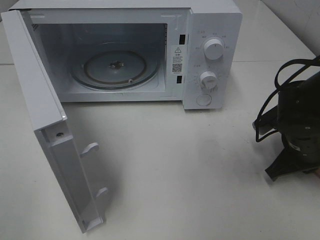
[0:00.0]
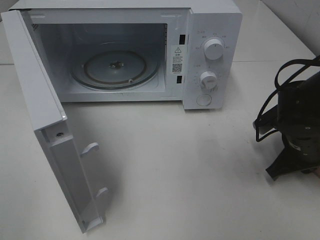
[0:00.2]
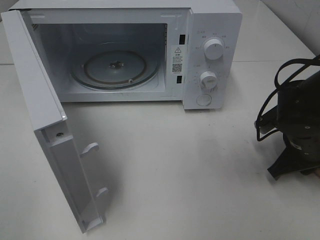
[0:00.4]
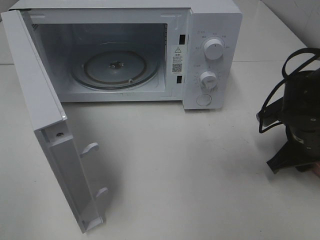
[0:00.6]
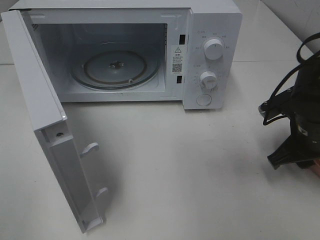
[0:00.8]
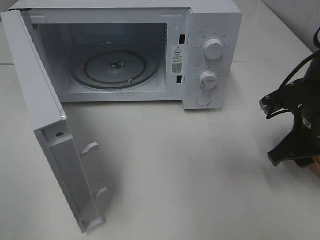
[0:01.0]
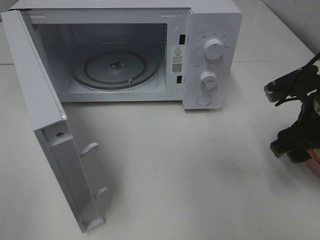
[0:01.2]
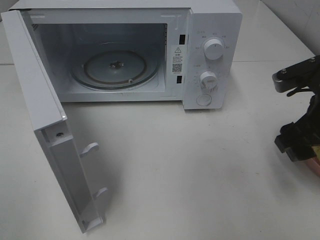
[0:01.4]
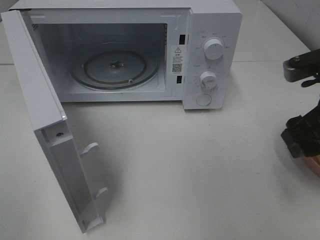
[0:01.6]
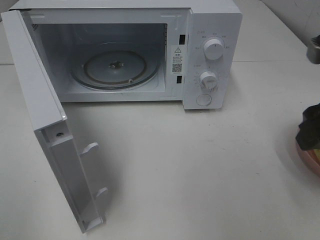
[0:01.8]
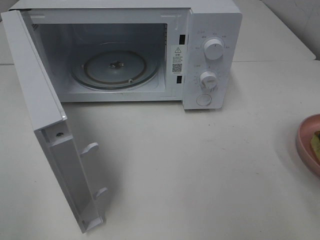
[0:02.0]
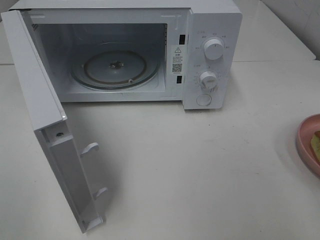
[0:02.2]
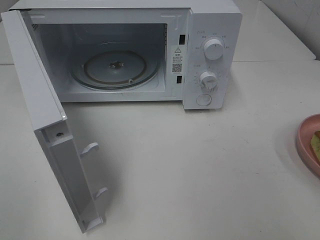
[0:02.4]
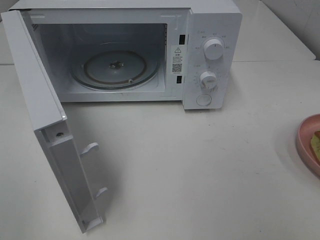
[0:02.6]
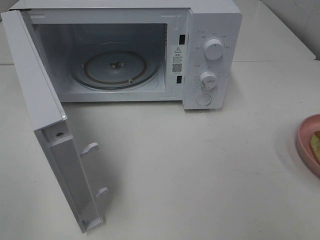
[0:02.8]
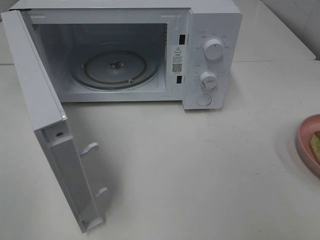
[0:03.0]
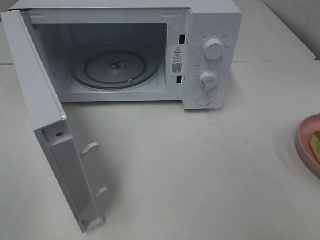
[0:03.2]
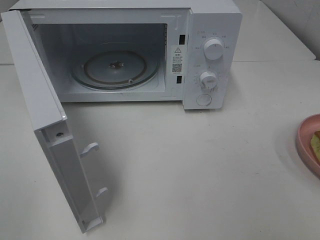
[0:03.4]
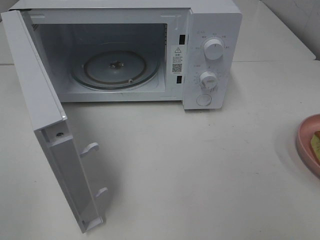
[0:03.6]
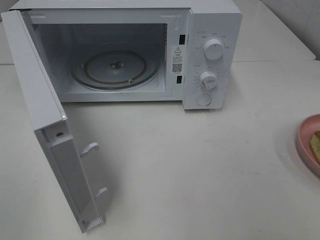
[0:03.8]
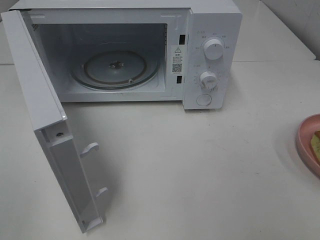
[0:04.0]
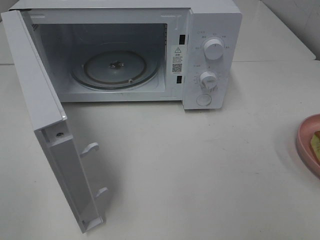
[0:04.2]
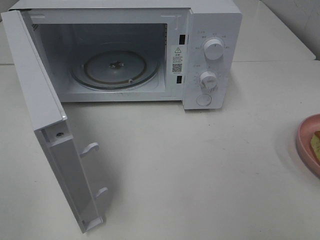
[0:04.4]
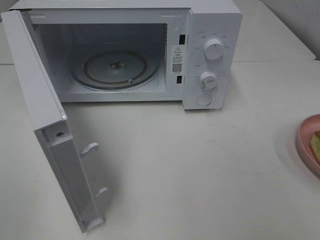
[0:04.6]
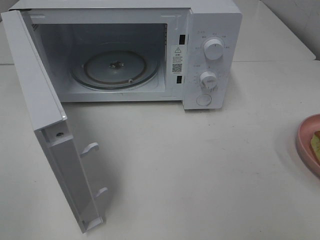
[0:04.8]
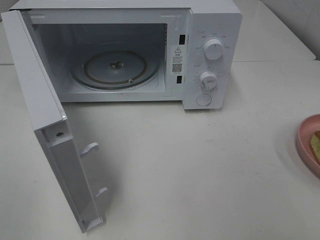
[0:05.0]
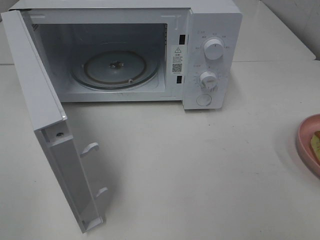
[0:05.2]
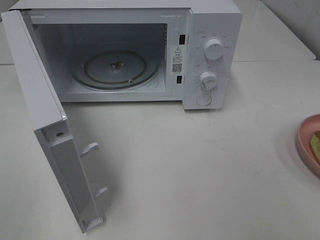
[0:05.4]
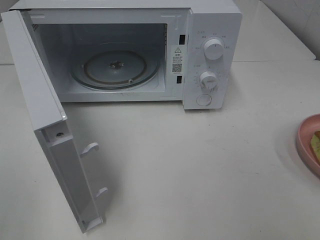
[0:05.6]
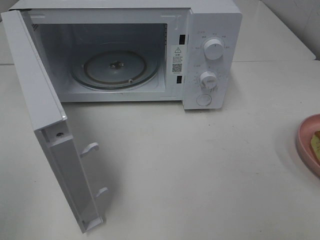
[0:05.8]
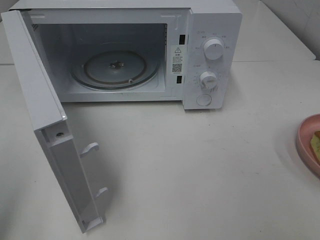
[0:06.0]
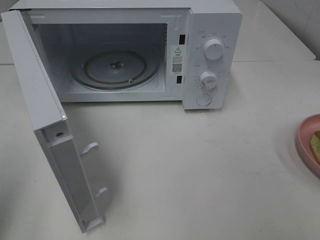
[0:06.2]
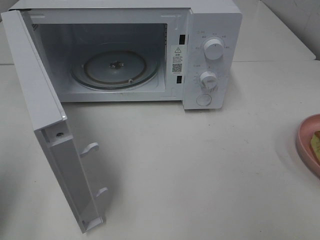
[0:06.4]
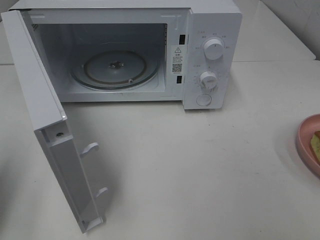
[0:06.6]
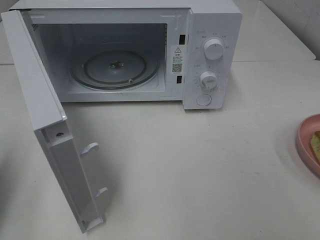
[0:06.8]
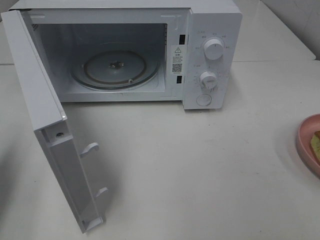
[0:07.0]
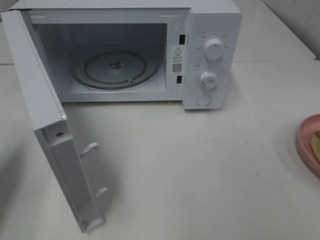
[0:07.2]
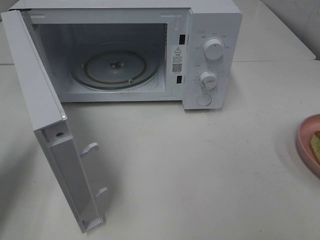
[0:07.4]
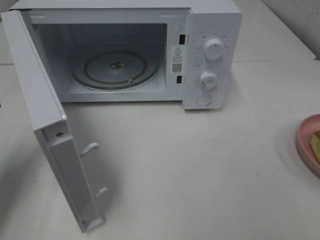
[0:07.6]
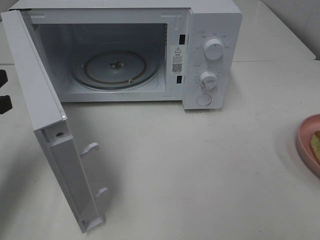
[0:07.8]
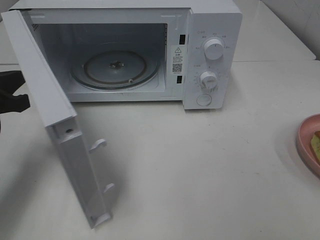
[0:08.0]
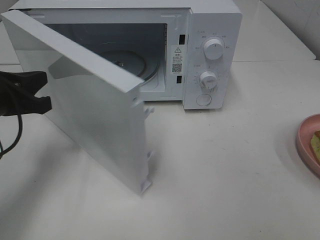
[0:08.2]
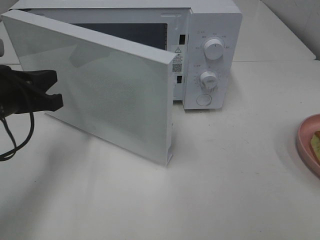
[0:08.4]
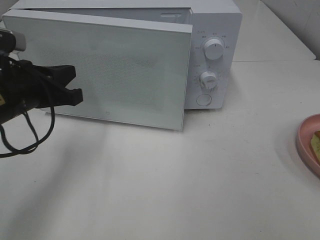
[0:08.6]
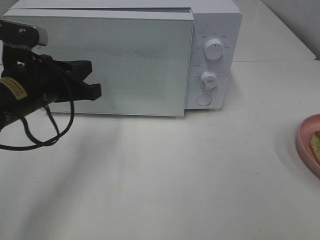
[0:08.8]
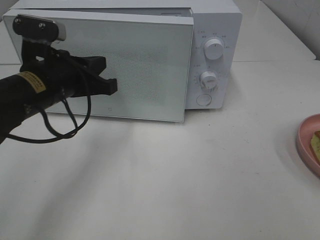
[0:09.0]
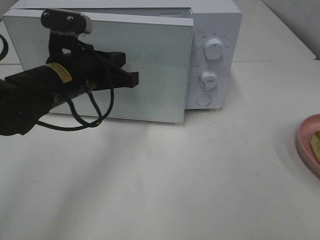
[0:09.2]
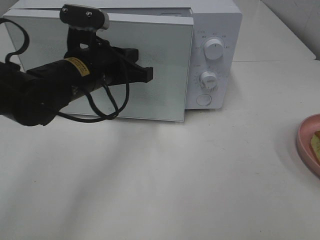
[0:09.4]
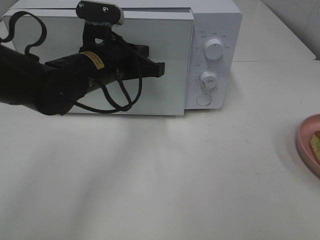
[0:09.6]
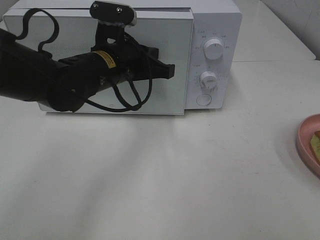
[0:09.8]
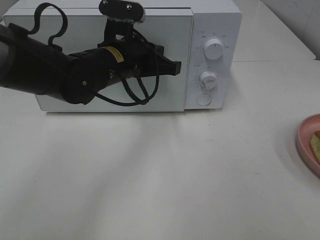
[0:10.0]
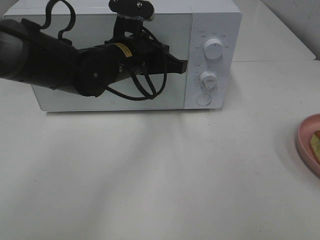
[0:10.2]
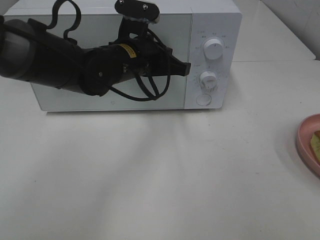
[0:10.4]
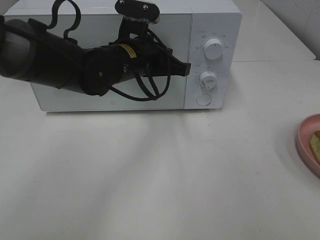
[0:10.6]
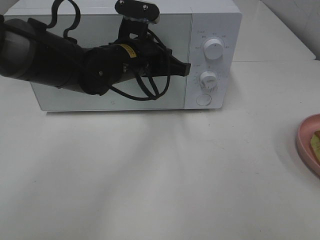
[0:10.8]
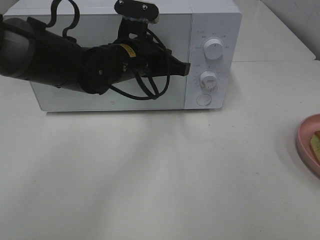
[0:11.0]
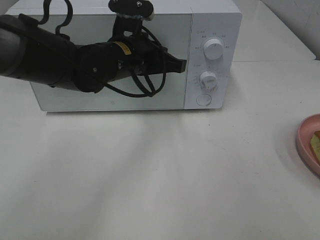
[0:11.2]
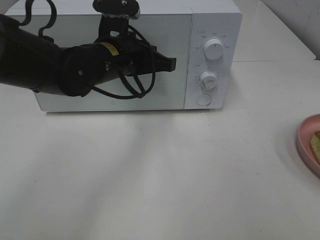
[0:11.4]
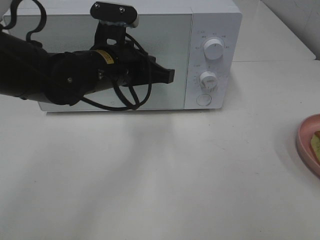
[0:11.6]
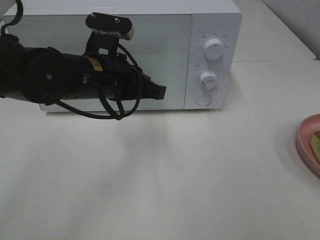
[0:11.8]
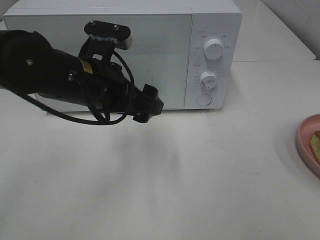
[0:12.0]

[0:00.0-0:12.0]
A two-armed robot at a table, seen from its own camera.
Task of the whole recording: Heat Sandwich.
Step, 2.0 to 11.6 s: Left hand: close the microwave door.
0.0 to 1.6 s: The right gripper goes roughly 15 cm upward and backward, and opens.
1.6 to 3.0 s: The right gripper goes some 20 cm backward.
6.0 to 7.6 s: The left gripper travels forward and downward by roughly 20 cm, and closes.
7.6 to 9.0 s: The left gripper moves to the right, roughly 15 cm.
9.0 to 10.4 s: The left gripper heads to the right and forward, covering about 15 cm.
10.4 to 12.0 s: The left gripper travels backward by about 10 cm, and opens.

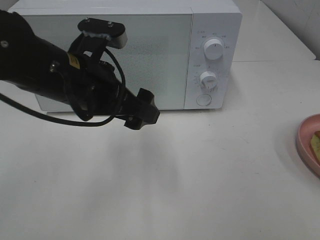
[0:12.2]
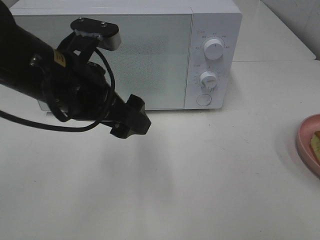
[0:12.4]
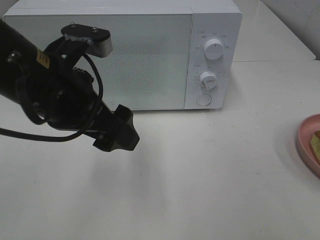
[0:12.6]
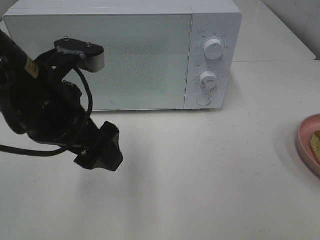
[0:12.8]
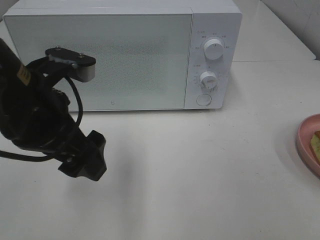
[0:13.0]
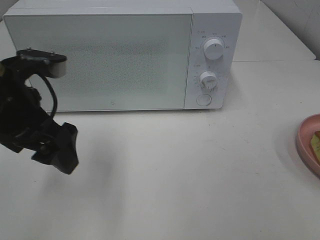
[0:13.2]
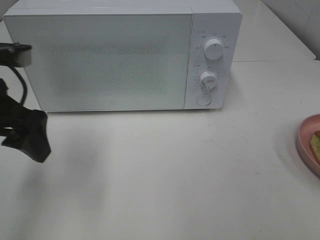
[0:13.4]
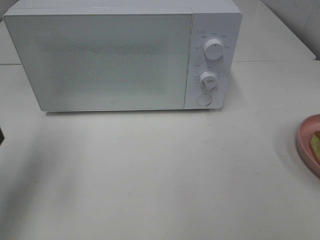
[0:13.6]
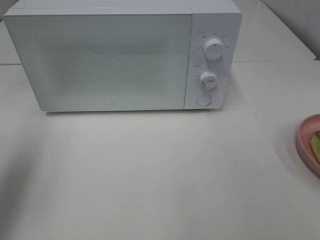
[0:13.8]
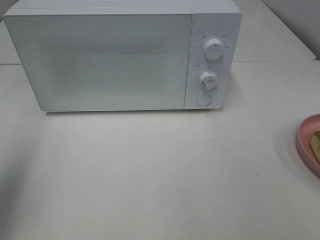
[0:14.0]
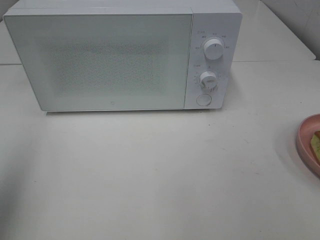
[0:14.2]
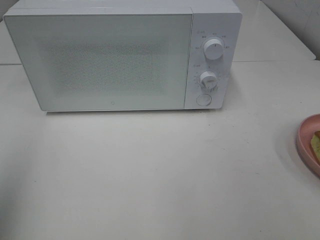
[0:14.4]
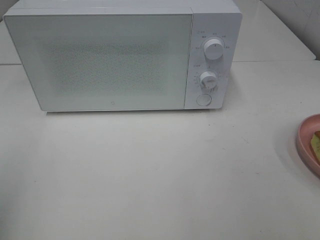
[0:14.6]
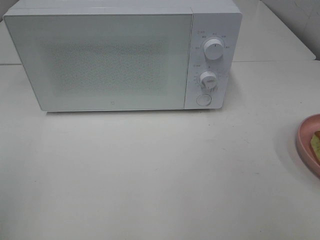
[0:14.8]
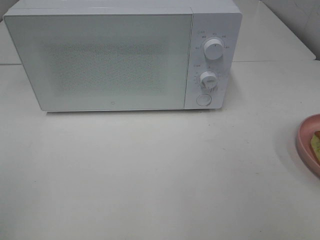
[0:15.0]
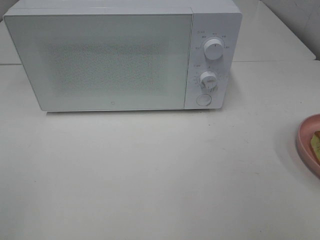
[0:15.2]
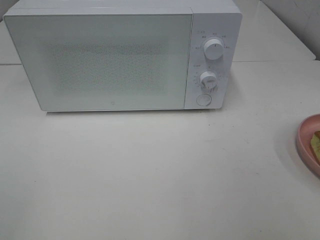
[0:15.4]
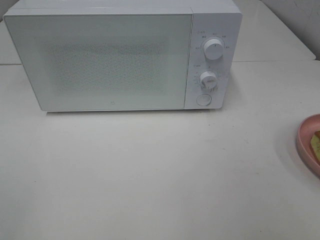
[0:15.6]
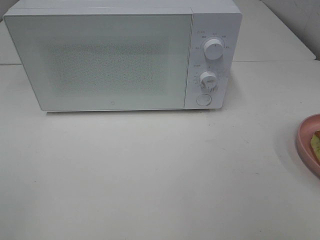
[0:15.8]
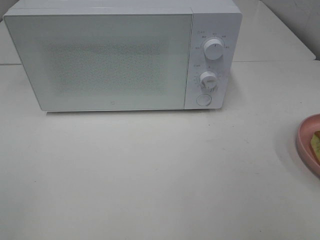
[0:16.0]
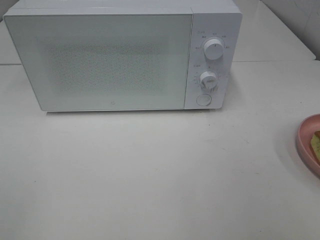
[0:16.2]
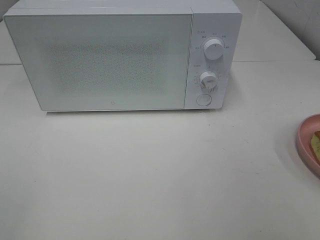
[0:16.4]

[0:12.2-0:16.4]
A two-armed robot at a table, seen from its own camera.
Task of the whole recording: Heat Sandwich.
12.2 to 13.6 s: The left gripper moves to the left, roughly 15 cm.
13.6 to 15.0 s: The left gripper goes roughly 20 cm backward.

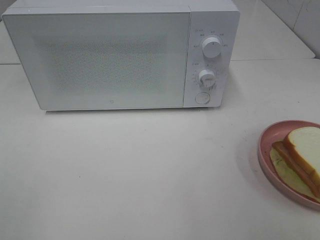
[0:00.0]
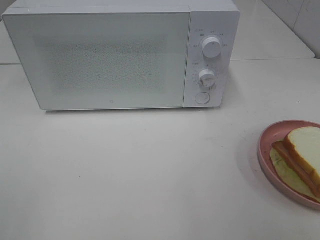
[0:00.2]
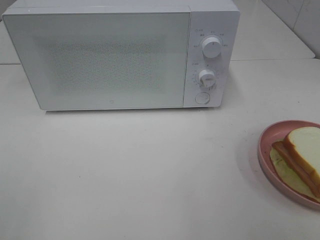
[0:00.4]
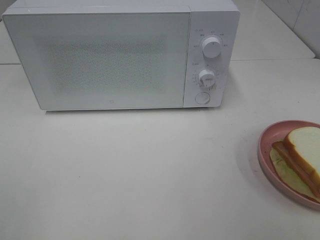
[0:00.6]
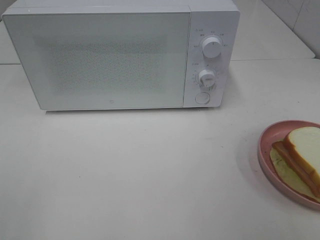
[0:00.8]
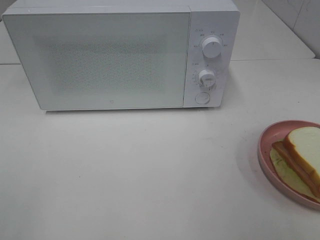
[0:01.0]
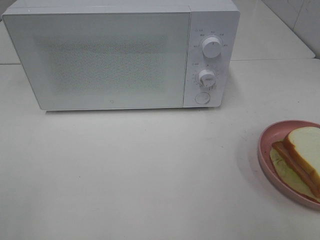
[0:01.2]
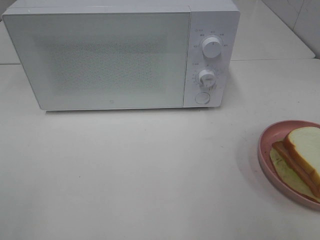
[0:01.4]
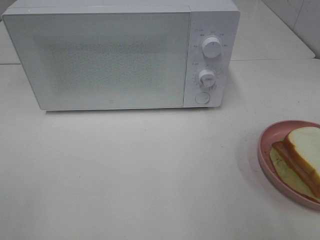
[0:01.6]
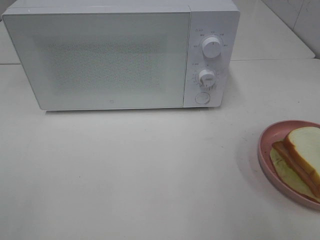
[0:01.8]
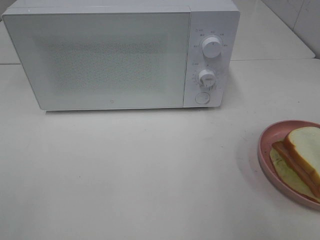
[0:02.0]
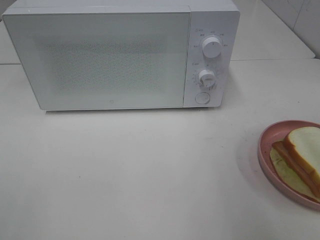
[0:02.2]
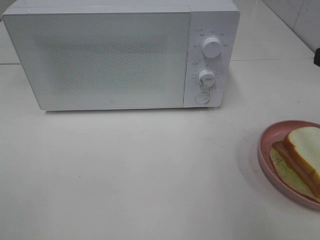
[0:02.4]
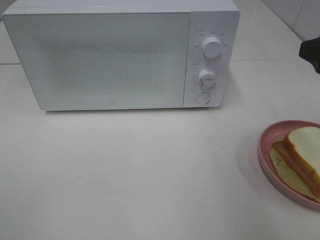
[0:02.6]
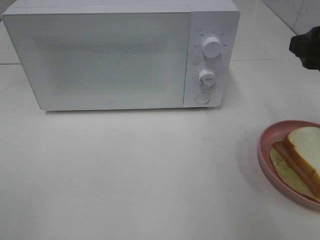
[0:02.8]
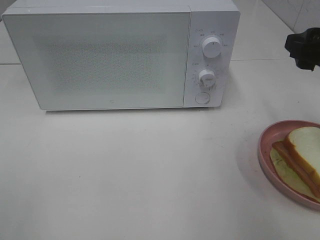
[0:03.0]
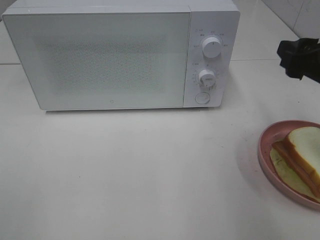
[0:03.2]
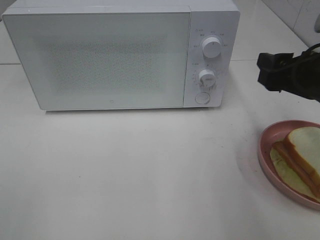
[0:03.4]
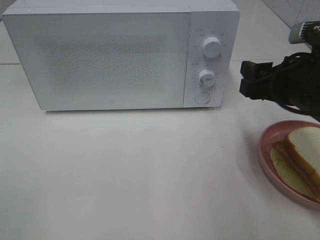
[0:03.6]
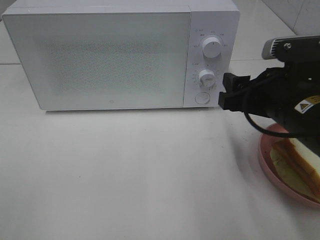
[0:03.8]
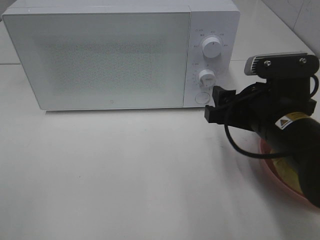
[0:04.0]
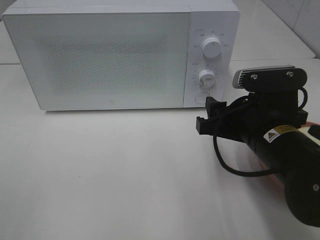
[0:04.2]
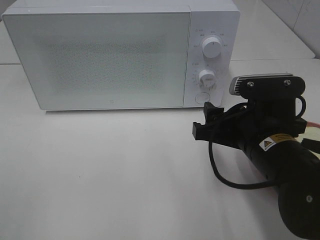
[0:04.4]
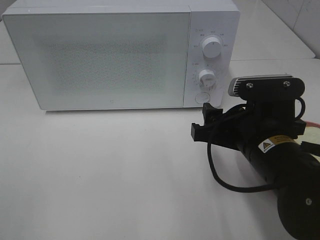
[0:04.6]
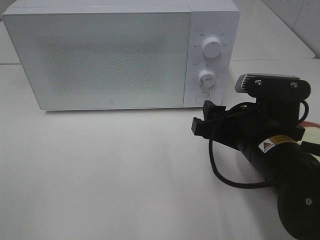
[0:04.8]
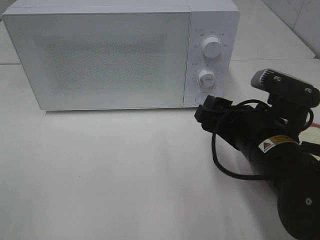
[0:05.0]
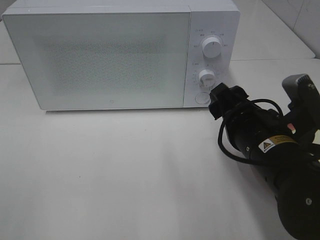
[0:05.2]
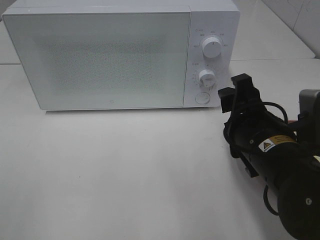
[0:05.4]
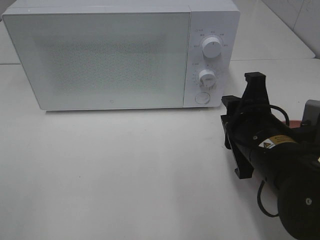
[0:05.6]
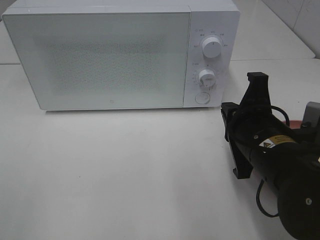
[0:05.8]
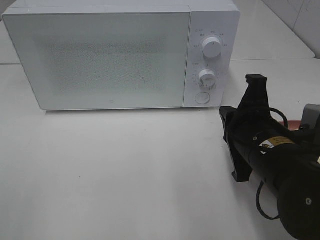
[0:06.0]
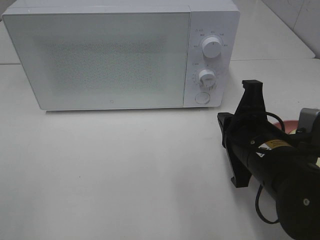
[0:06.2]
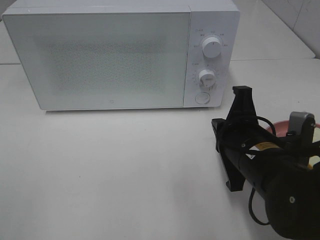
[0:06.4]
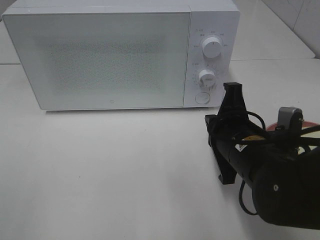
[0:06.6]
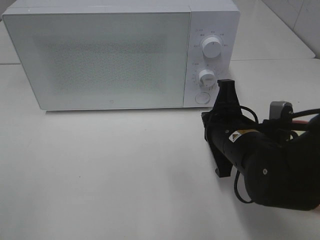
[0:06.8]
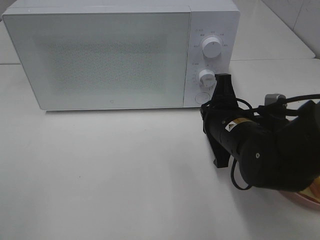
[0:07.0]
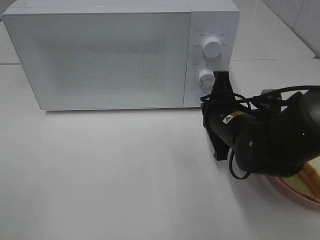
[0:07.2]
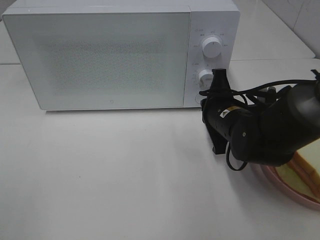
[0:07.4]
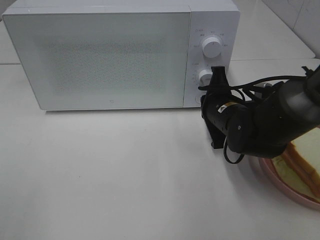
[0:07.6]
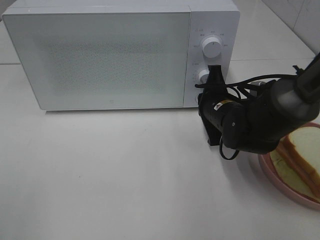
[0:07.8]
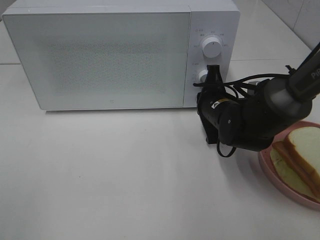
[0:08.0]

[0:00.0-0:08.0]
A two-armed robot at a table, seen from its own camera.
Task of the whole recording: Heat Sandwich.
1.6 to 3.2 s: The right gripper moves forward and downward, about 15 cm.
3.2 to 4.8 s: The right gripper is displaced to the left and downward by roughly 15 cm.
4.8 to 6.4 s: The right gripper closes up.
6.4 to 8.0 s: The right gripper travels forward by approximately 15 cm.
